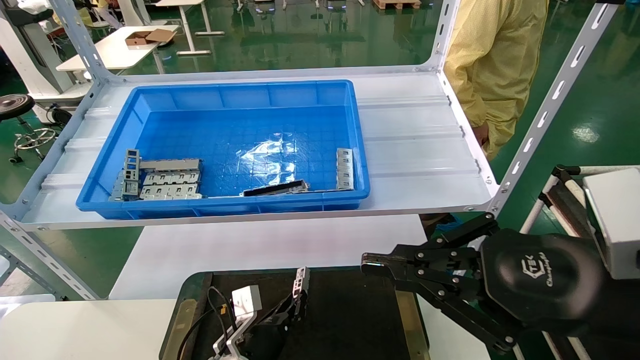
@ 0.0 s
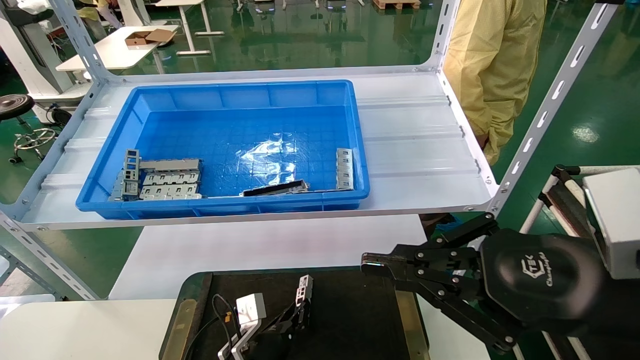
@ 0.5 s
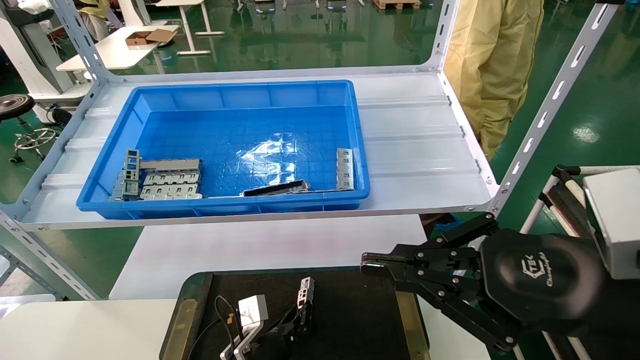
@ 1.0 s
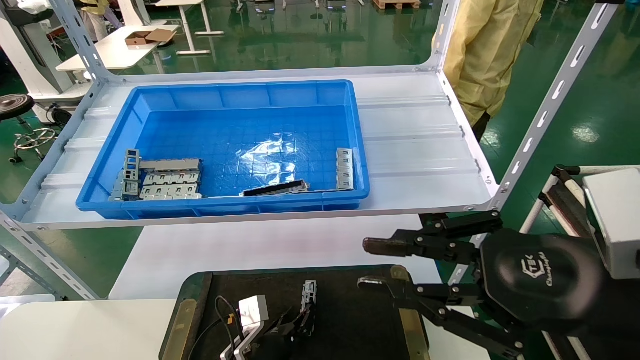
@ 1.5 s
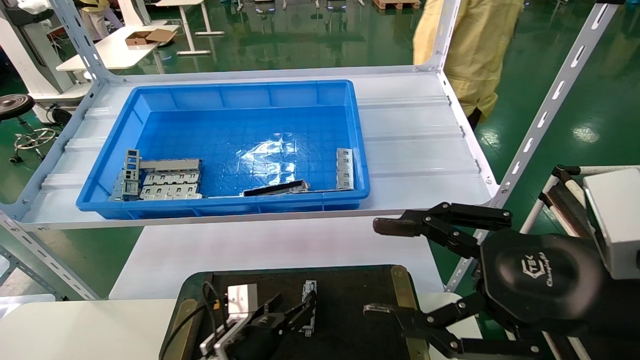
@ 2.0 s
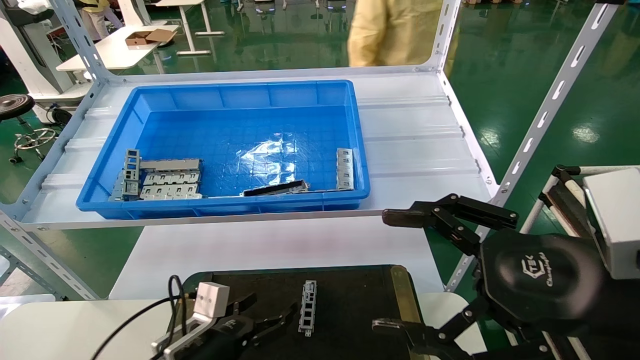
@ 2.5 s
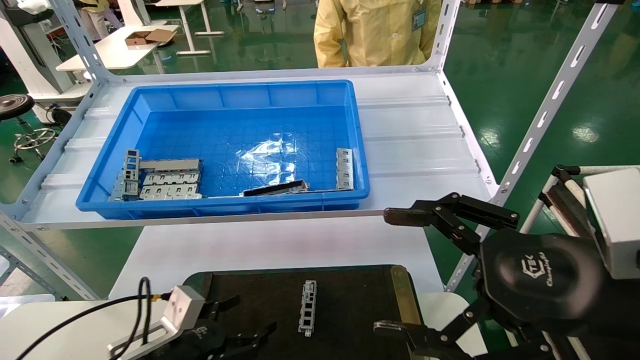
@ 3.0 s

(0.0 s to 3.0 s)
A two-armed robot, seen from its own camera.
Task of the whole recording: Grasp the part with one hand and place it on the black container.
0.0 s - 1.5 s: The grippers stay close to where they were, moving slightly.
1.5 s - 3.0 s: The right gripper opens its fingers; the left gripper is displaced to the left, upward and backward by roughly 20 cm, and opens.

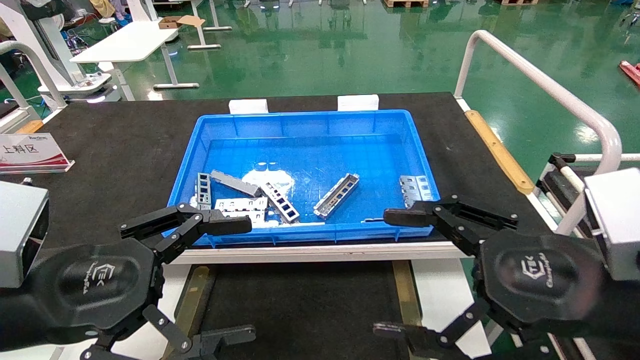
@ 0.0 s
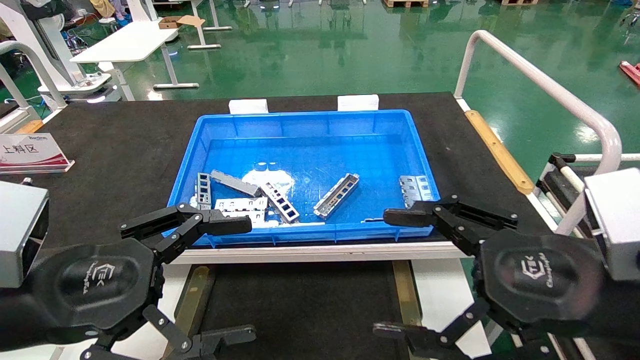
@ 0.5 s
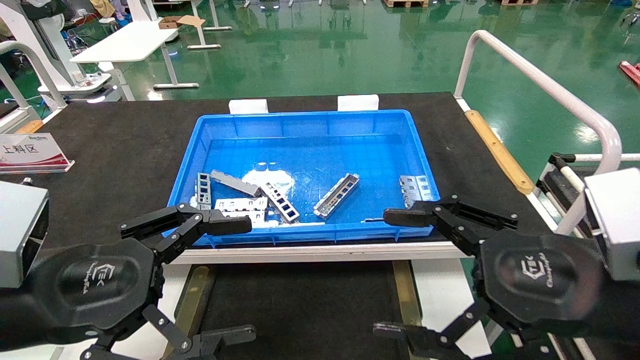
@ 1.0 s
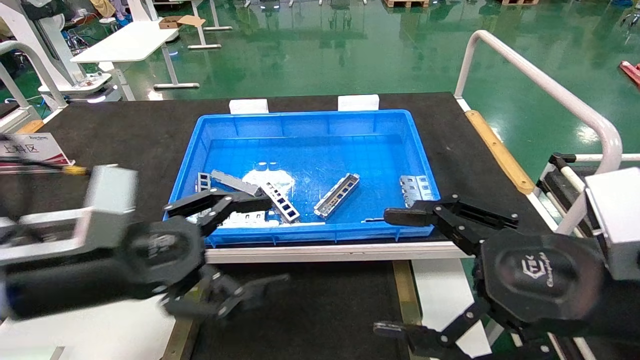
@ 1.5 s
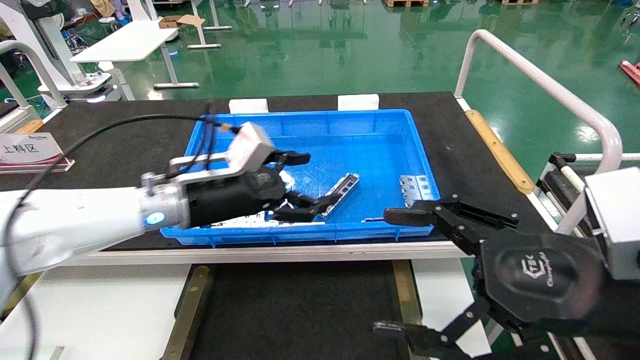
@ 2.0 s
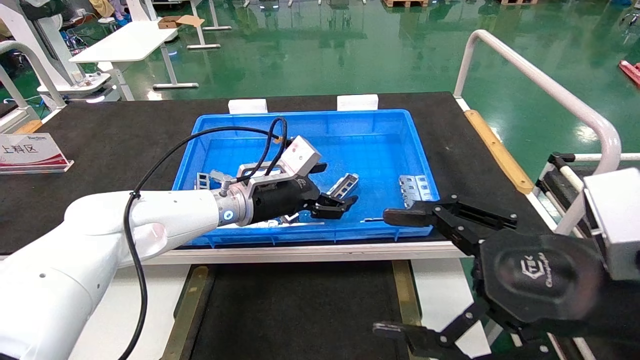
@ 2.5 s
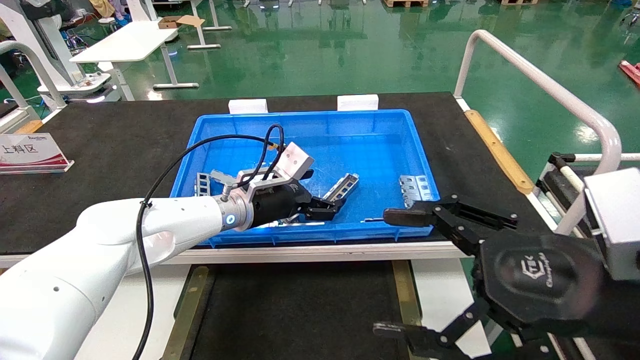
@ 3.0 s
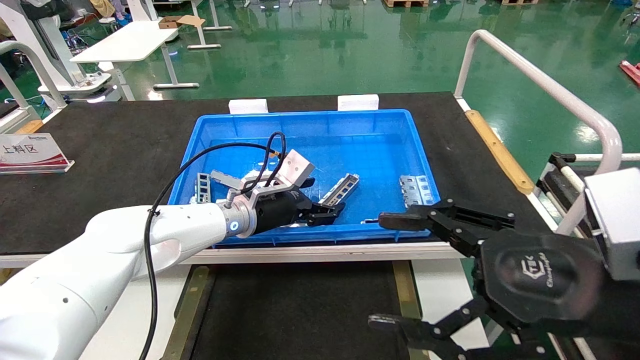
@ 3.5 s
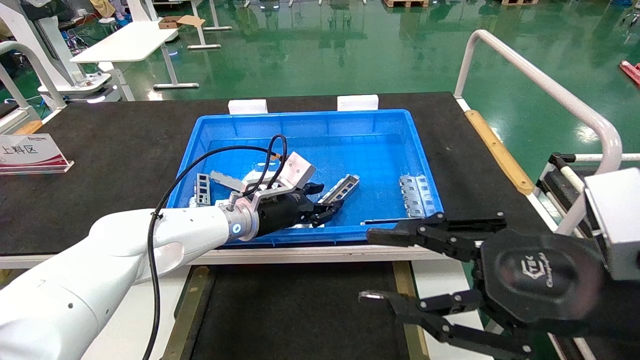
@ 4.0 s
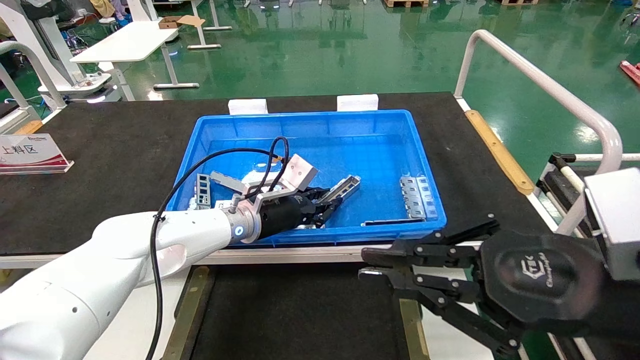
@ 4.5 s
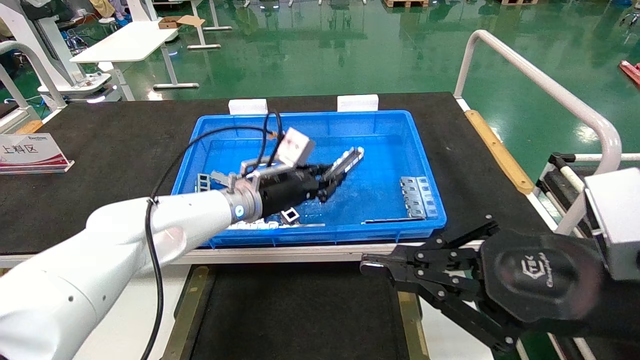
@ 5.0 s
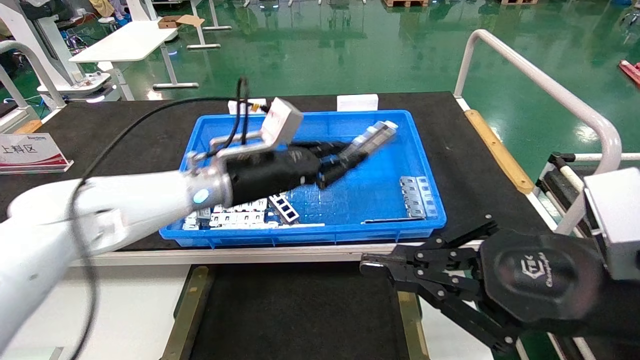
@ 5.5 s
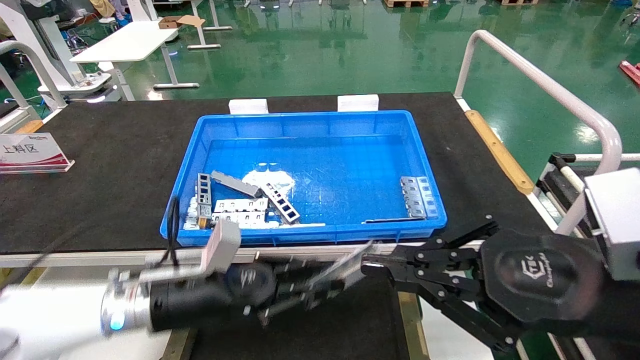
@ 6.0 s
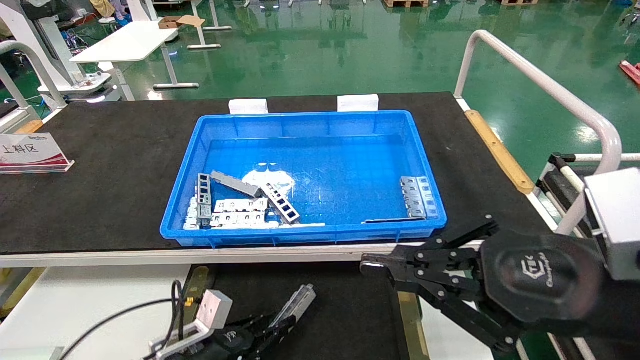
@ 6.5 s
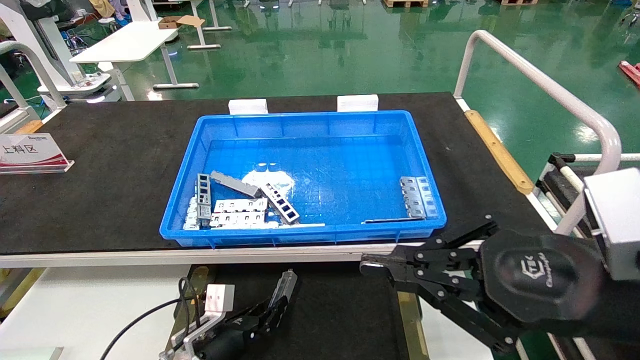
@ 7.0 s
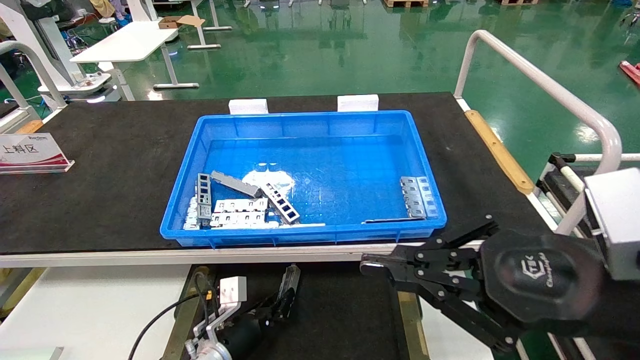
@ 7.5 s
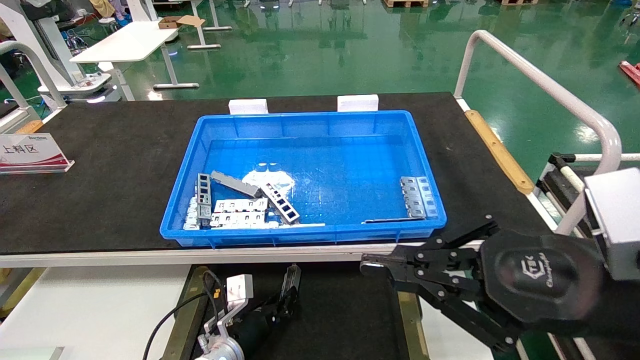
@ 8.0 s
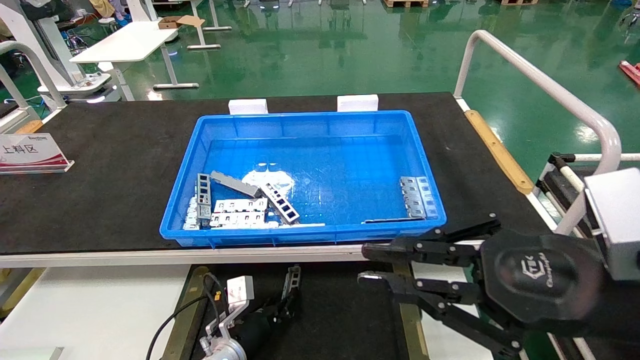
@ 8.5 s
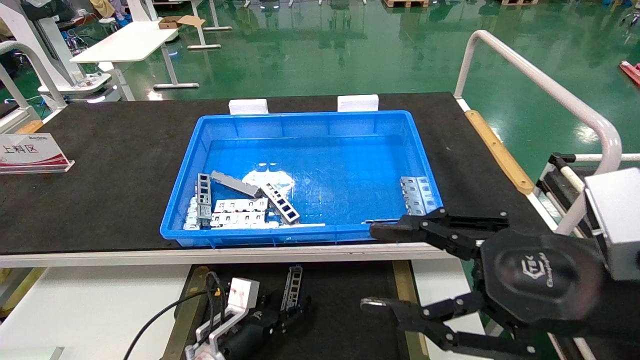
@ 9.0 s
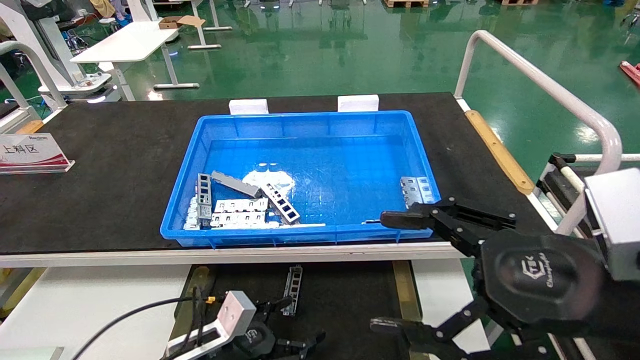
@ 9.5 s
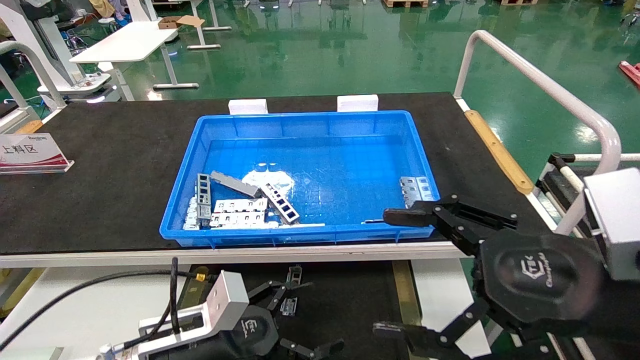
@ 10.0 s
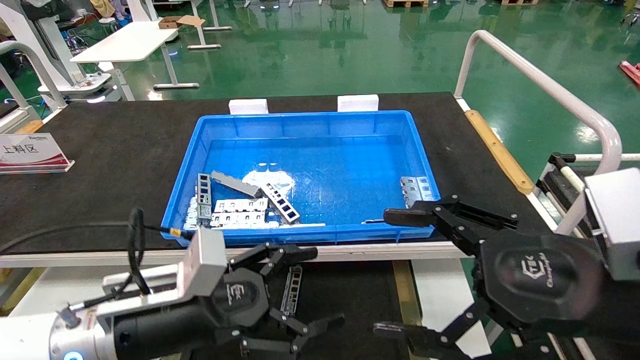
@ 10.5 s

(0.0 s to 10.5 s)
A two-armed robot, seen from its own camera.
Task of the whole recording: Grasp the part with one hand and place it on the black container.
Step, 1.5 s - 4.0 s: Pick up the front USB bracket from the feeding area.
Step, 4.5 s - 8.5 s: Place the front USB bracket into the box.
0.0 s - 2.0 s: The left gripper goes about 25 cm forward and to the right.
2.0 s - 4.0 s: The left gripper shifts approximately 10 cm forward, downward and to the right, and closes up; the right gripper closes its fingers.
4.0 s - 6.5 s: The right gripper closes. The left gripper moves downward, backward and to the left, roughly 25 cm, and closes.
6.5 s - 8.5 s: The left gripper is displaced forward, to the right and downward by roughly 10 cm.
8.5 s - 10.5 s: The left gripper shifts about 25 cm upward and backward, and opens, while the right gripper opens.
